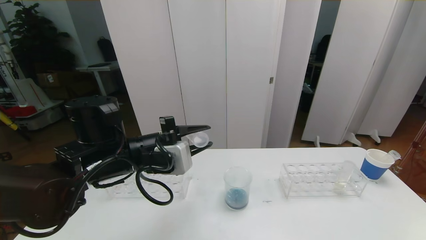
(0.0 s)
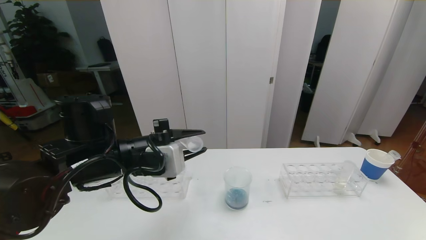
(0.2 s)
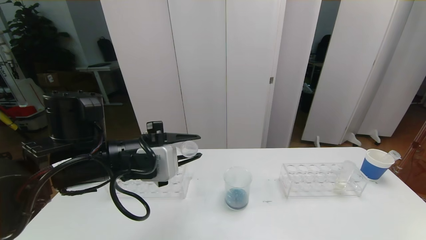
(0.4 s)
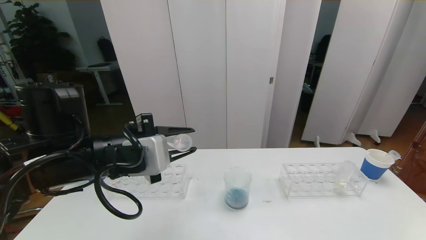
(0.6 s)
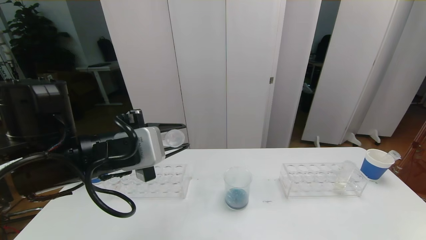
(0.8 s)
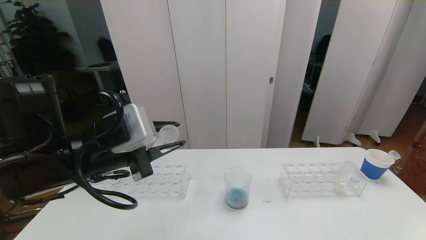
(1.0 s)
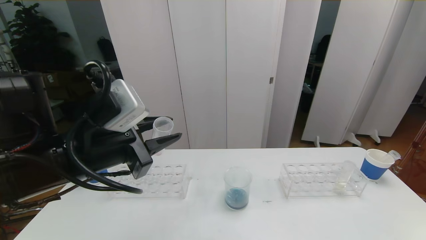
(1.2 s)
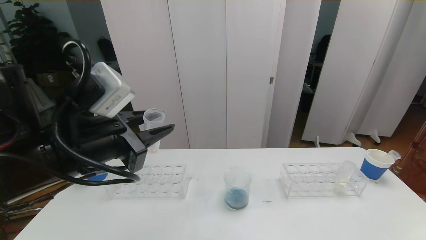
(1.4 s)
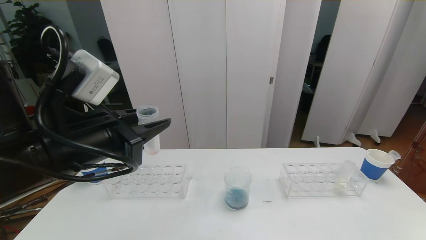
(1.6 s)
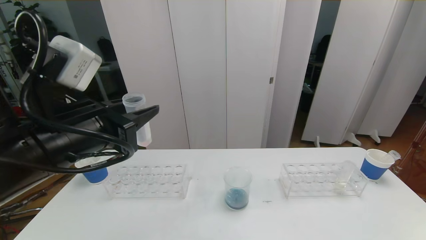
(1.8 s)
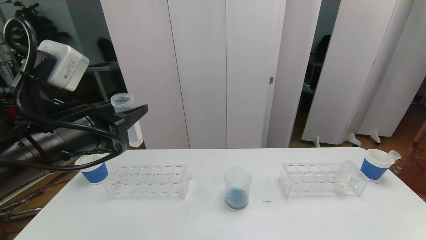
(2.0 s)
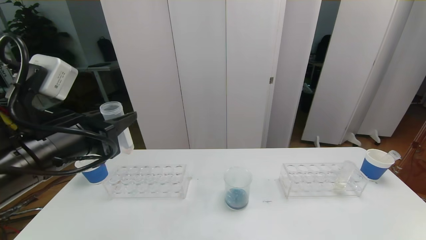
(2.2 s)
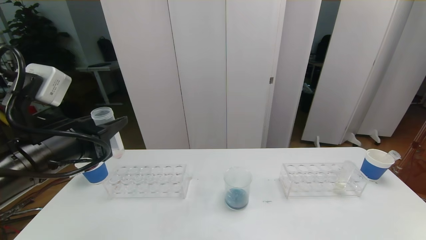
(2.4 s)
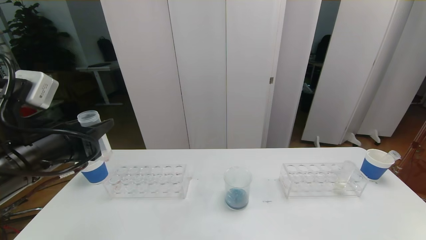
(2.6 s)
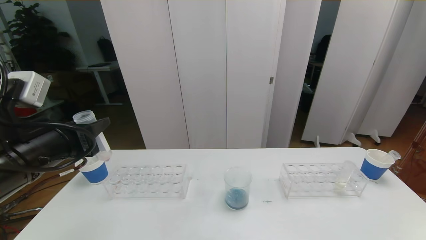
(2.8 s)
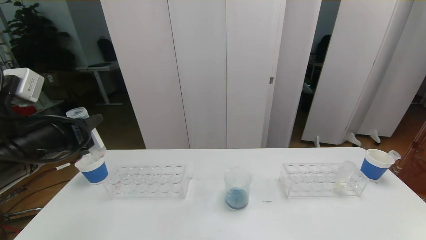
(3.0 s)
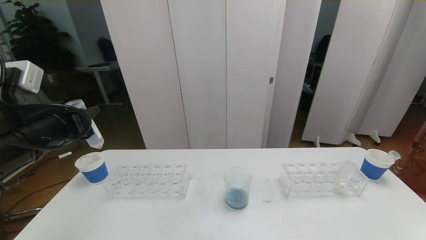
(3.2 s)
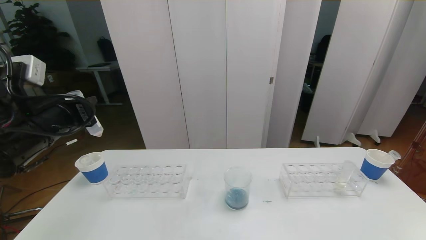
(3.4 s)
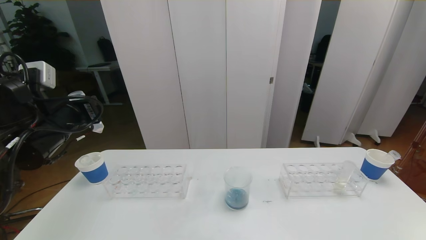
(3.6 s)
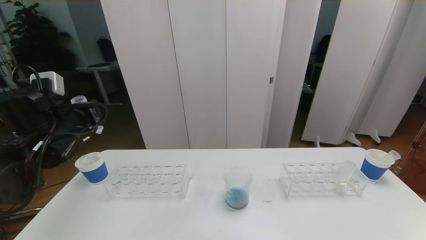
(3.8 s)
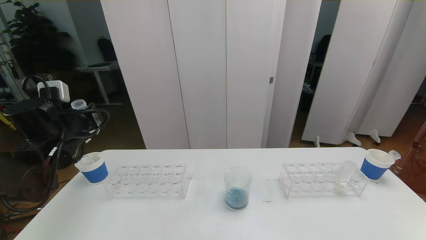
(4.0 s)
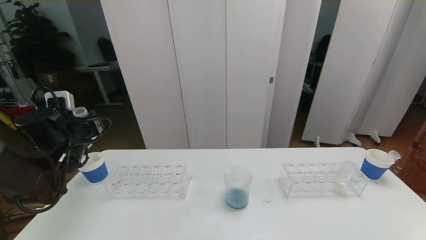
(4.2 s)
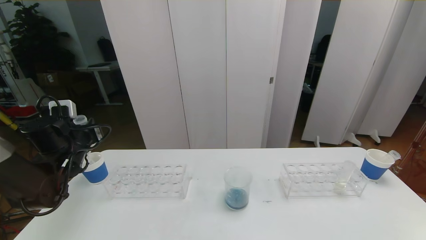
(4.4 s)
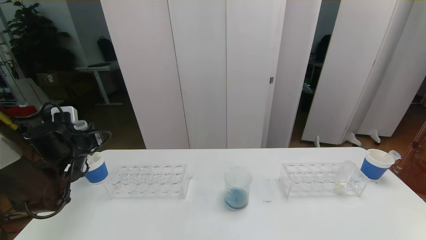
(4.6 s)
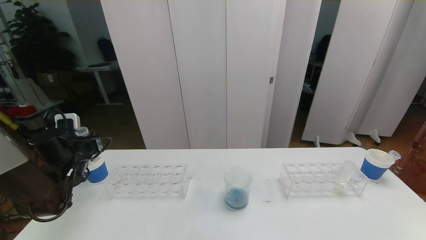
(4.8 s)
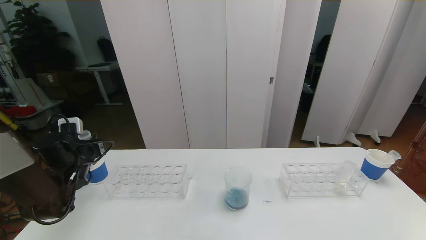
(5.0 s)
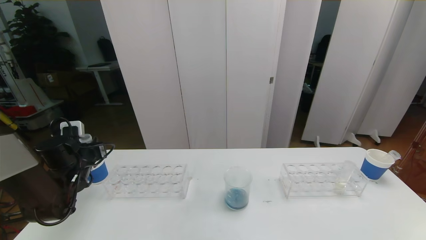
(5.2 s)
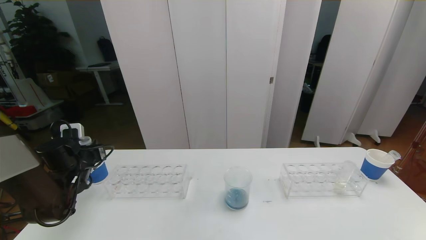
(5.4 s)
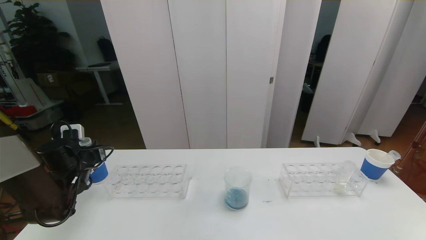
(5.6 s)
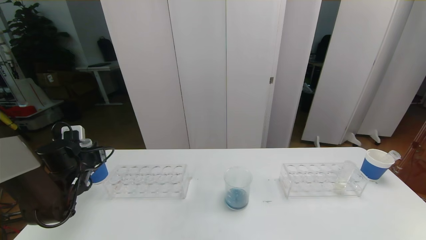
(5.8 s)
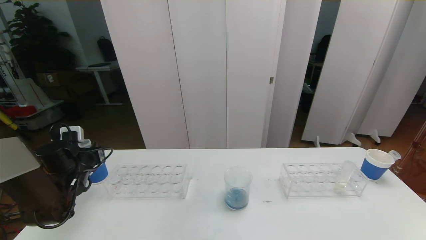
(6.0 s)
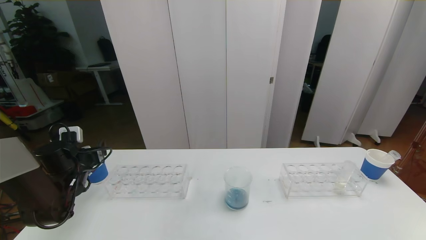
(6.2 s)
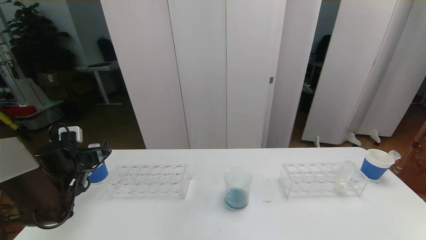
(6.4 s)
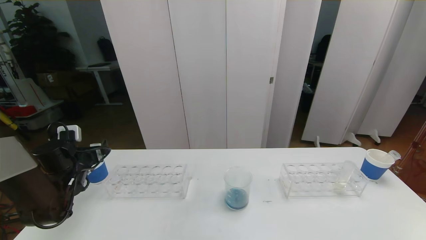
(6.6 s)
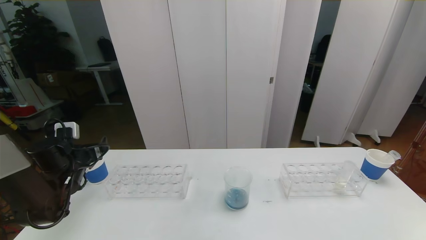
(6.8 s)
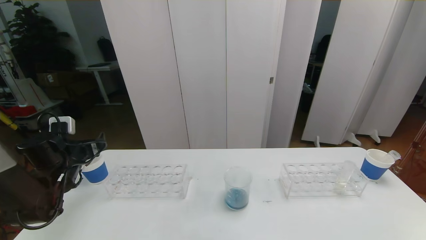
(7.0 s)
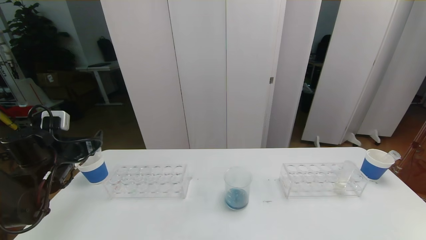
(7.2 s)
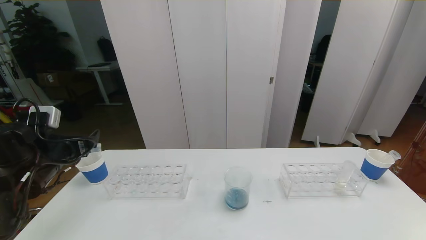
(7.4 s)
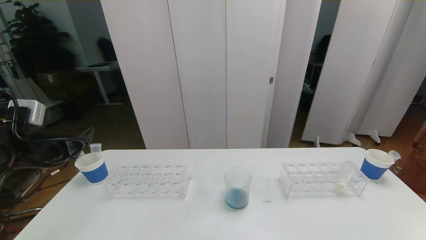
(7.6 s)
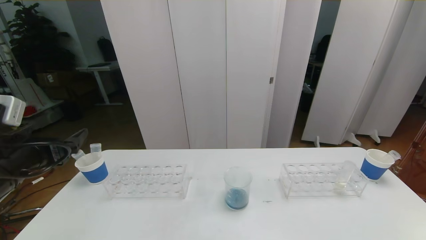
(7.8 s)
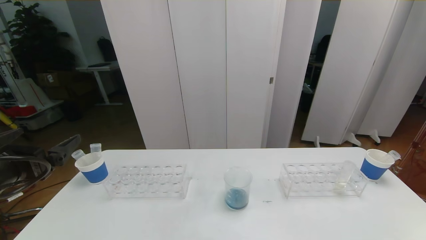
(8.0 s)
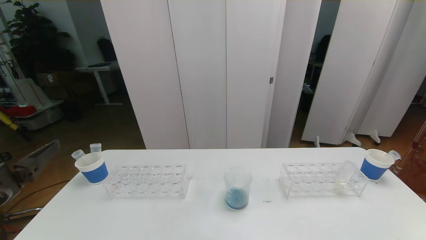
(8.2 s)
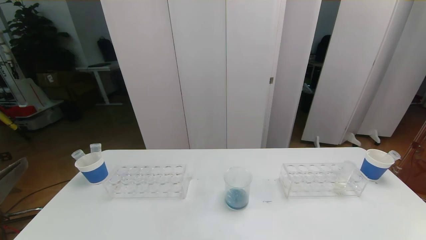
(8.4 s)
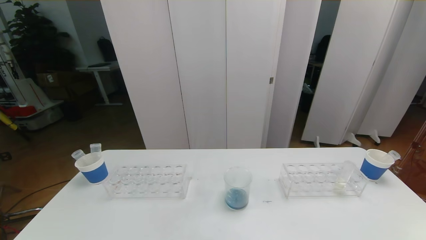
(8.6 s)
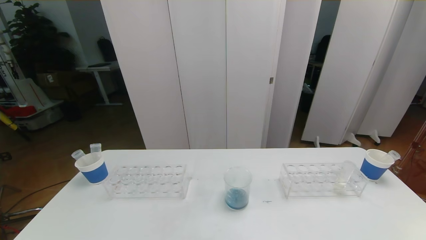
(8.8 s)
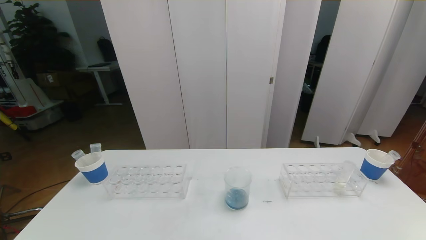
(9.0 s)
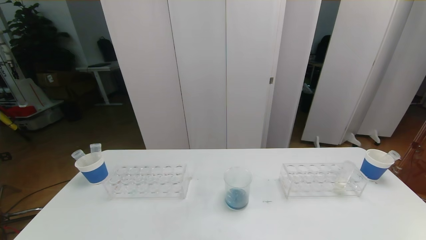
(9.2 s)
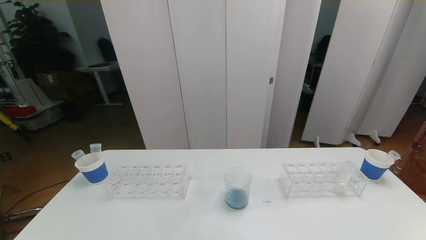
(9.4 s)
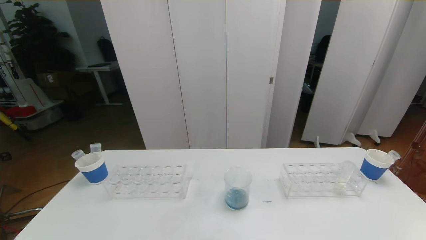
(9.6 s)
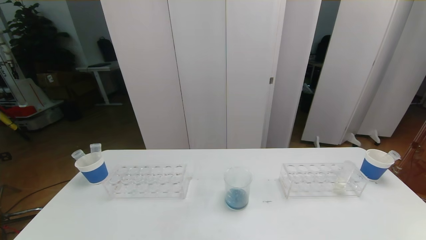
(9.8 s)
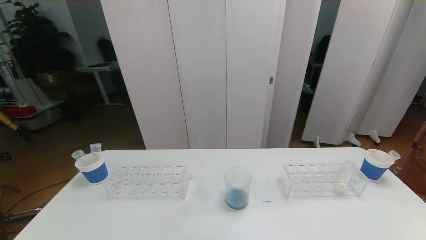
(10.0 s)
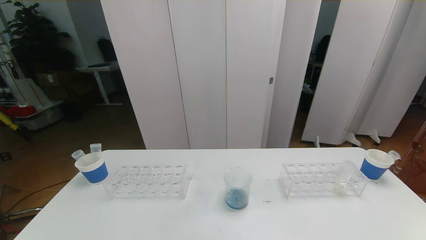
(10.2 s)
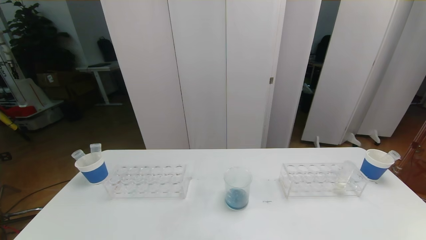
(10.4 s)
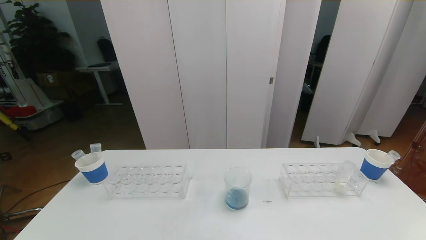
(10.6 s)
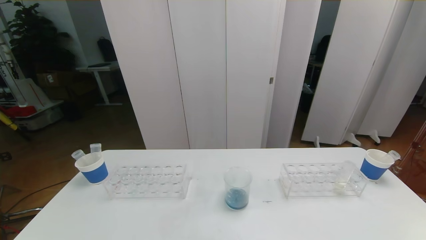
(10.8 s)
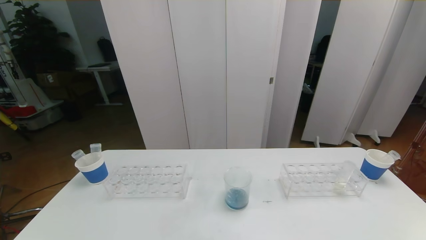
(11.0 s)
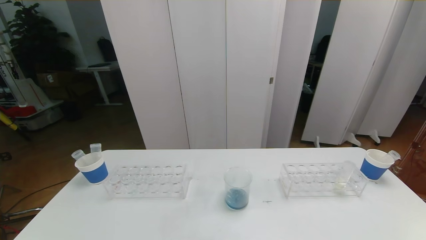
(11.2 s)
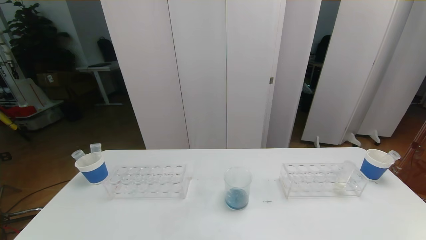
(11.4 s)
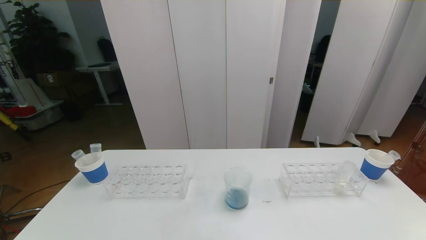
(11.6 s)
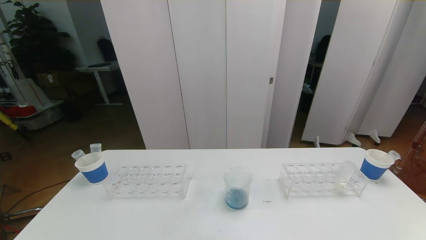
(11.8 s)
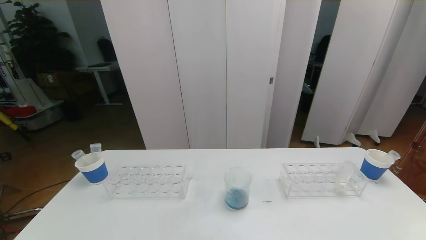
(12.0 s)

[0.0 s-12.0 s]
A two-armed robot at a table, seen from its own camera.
Task of the whole recording: pick up the test tube with red pigment the test tube with blue pigment and the test tube with white pigment by grippers and pour them into the beaker.
Step, 0.0 to 10.6 s: Pour the orange reagent into the graduated cylinder and place the test tube into the paper cup.
0.0 to 1.6 s: The left gripper heads backward and upward, covering about 10 cm.
1.6 to 3.0 s: The left gripper is displaced to the left by some 10 cm.
3.0 to 4.4 s: The left gripper is displaced forward, downward and to the left by approximately 20 cm.
4.4 to 6.0 s: The left gripper goes some 5 cm downward.
6.0 to 7.6 s: The left gripper travels upward and backward by some 15 cm, and opens its fingers.
7.6 to 9.0 s: The left gripper is displaced backward by approximately 30 cm.
10.4 to 12.0 s: Both grippers stay about where they are.

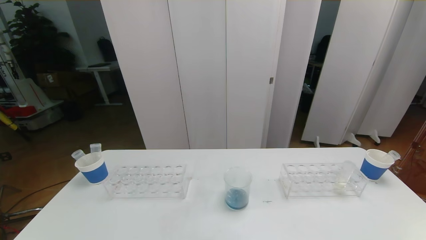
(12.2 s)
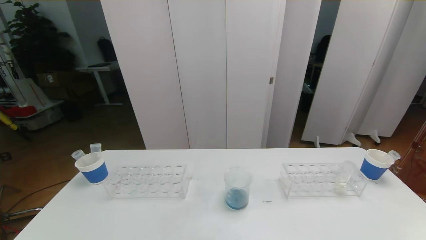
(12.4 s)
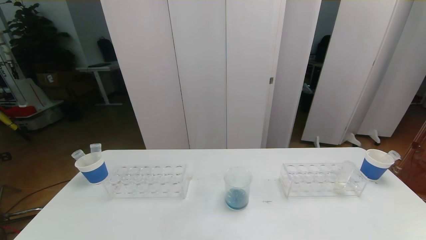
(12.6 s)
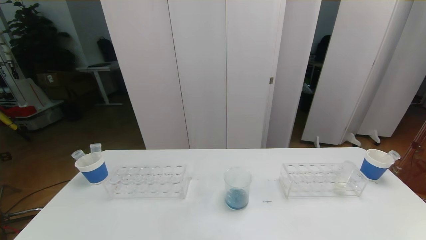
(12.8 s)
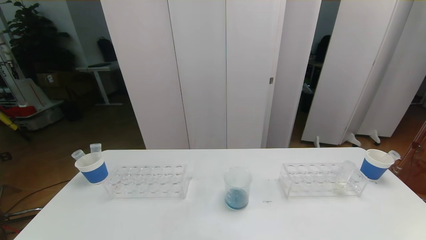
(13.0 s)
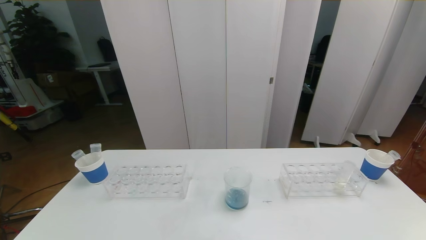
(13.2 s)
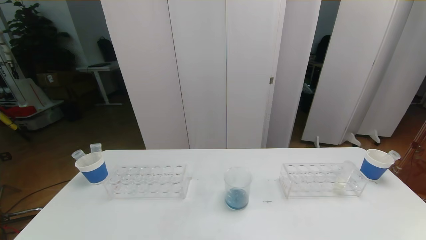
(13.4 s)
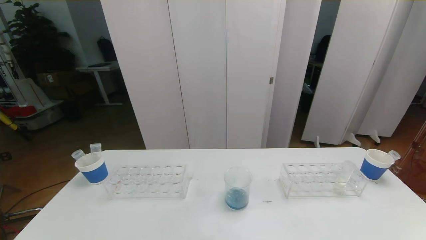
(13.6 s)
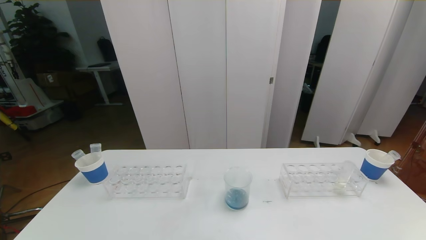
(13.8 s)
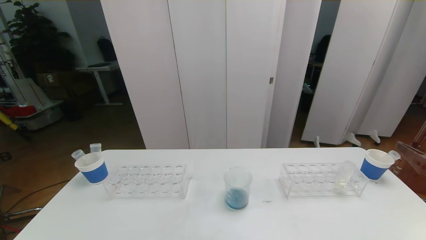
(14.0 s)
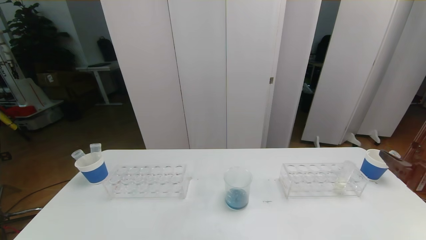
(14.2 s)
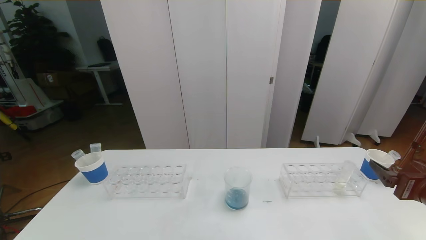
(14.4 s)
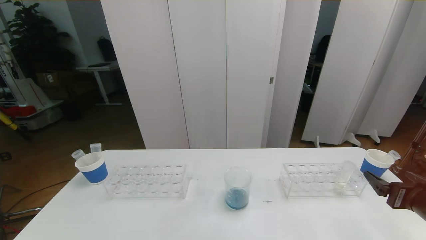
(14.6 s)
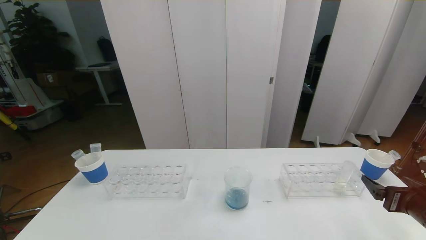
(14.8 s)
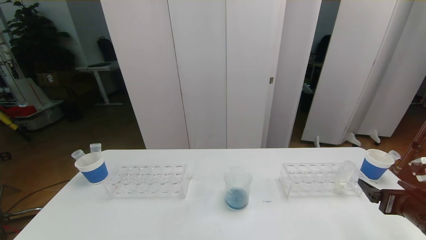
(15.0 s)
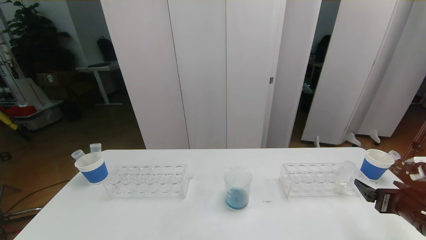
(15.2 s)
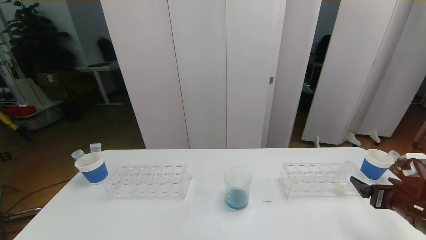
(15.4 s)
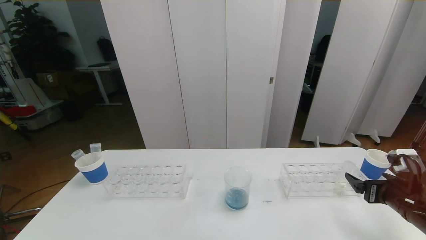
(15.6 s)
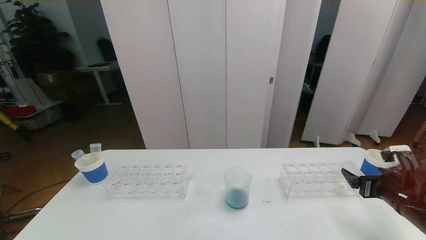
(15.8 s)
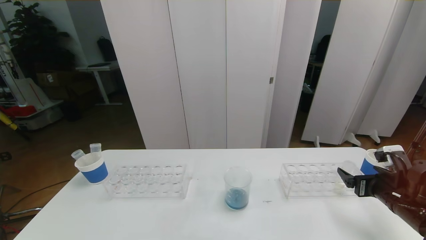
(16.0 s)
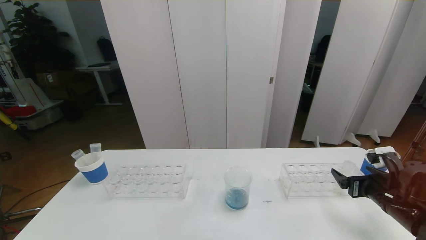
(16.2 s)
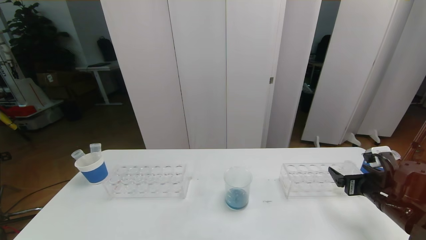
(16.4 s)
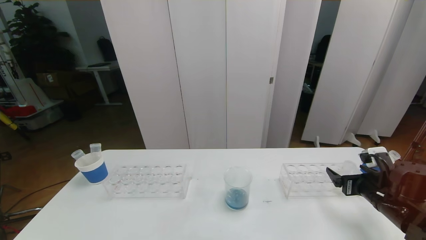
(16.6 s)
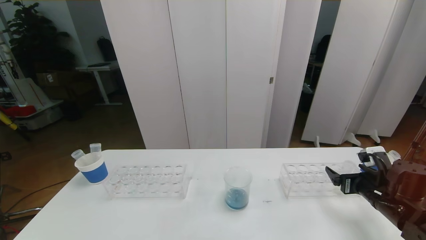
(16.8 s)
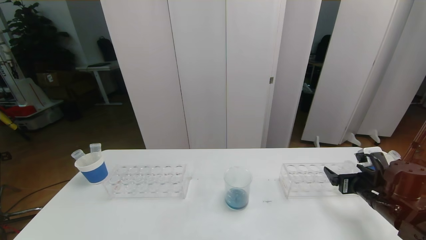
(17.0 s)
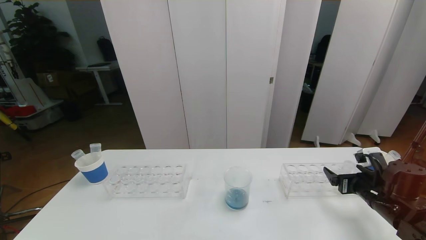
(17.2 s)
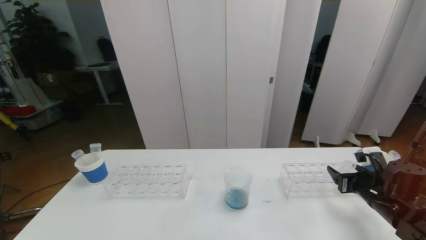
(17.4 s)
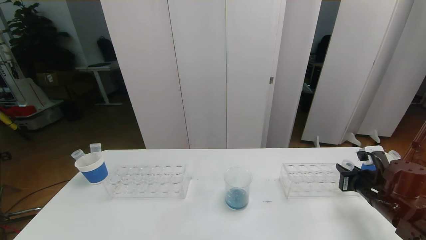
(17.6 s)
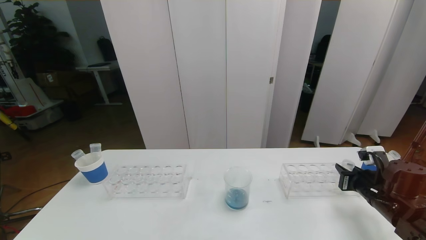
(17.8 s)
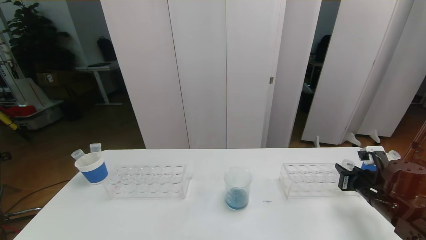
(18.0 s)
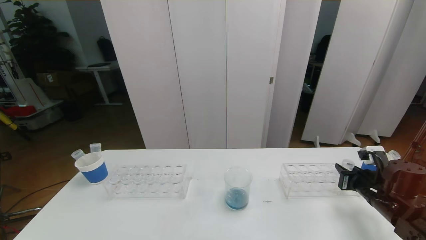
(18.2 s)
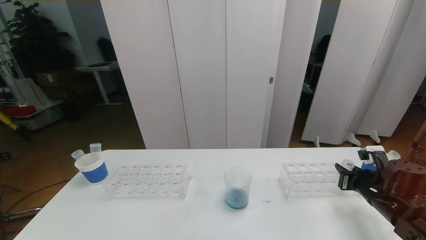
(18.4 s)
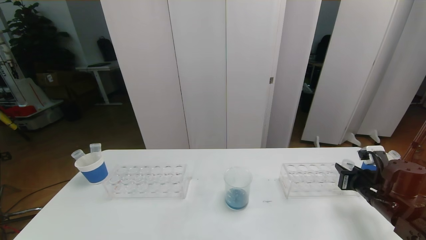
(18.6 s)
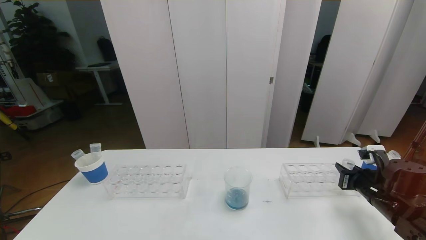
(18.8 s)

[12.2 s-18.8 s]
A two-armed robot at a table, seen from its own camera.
Task of the whole recording: pick up the test tube with red pigment the test tube with blue pigment and the test tube with white pigment by grippers and pour them into the beaker.
13.8 to 15.4 s: The right gripper goes roughly 15 cm downward and forward.
15.4 to 17.2 s: The right gripper is displaced forward by about 5 cm.
17.2 to 18.8 s: The right gripper closes.
